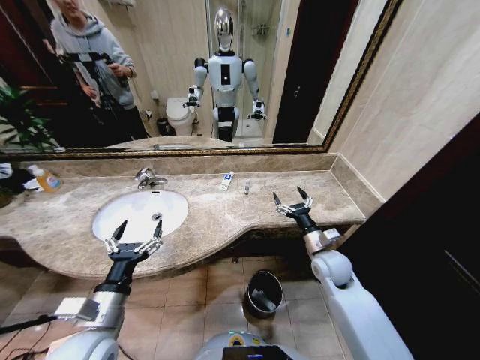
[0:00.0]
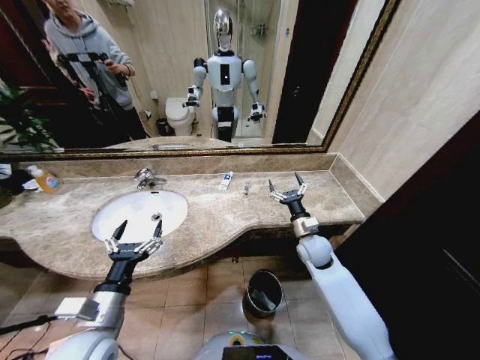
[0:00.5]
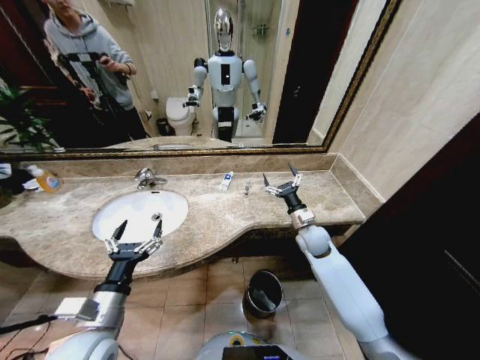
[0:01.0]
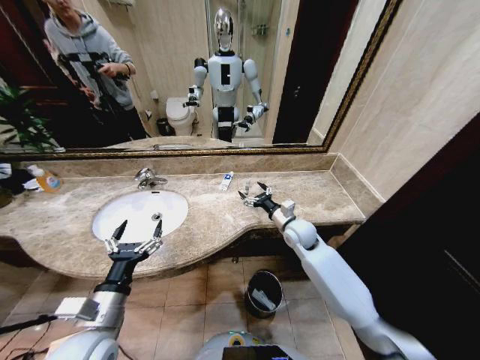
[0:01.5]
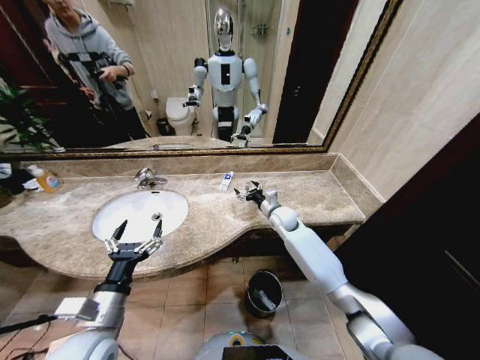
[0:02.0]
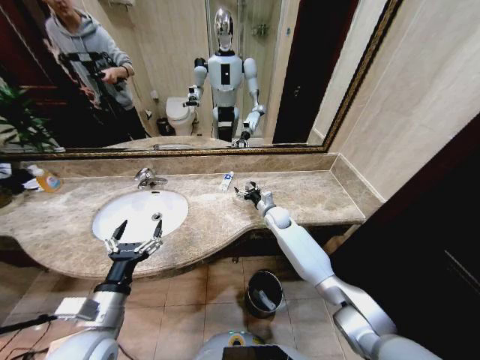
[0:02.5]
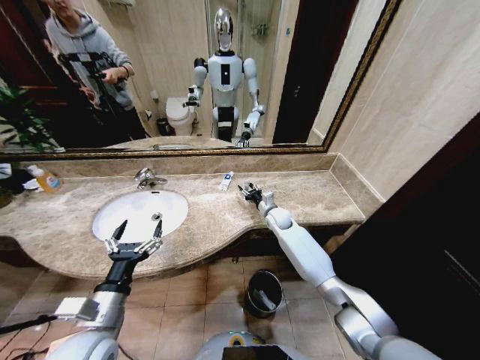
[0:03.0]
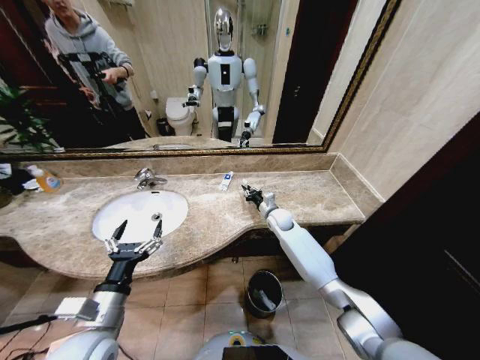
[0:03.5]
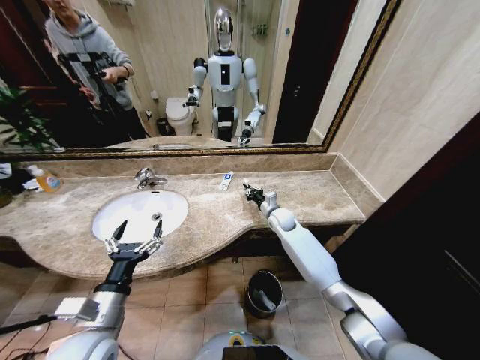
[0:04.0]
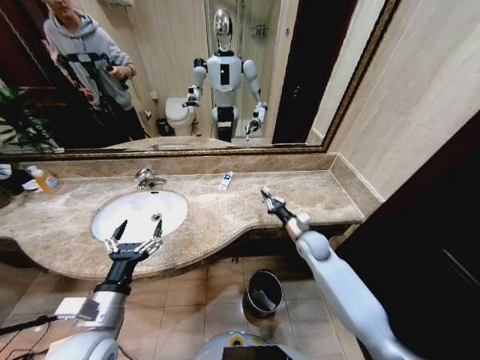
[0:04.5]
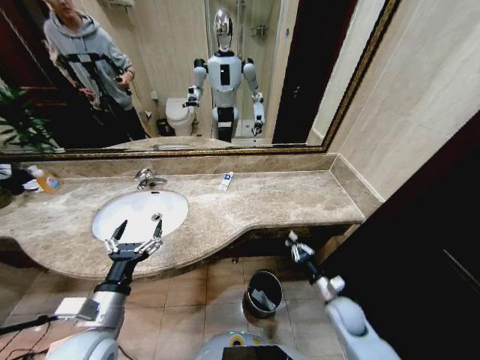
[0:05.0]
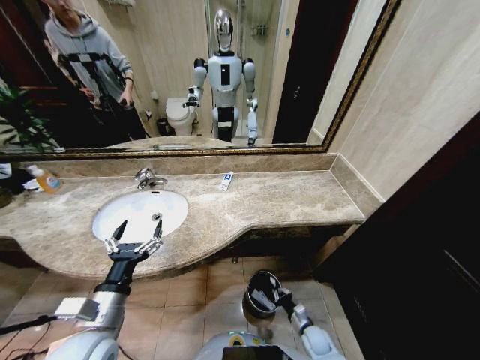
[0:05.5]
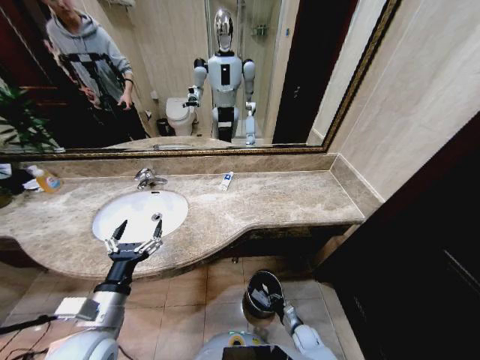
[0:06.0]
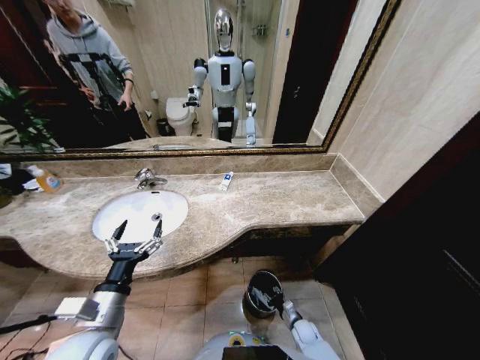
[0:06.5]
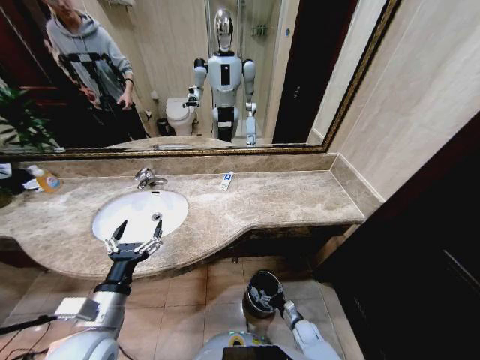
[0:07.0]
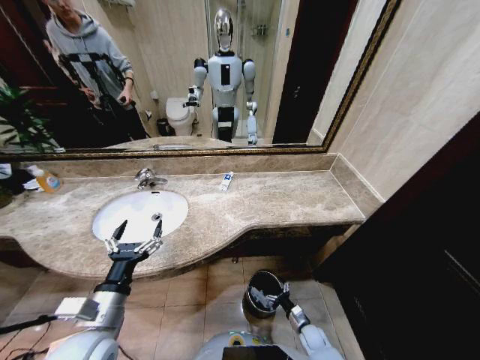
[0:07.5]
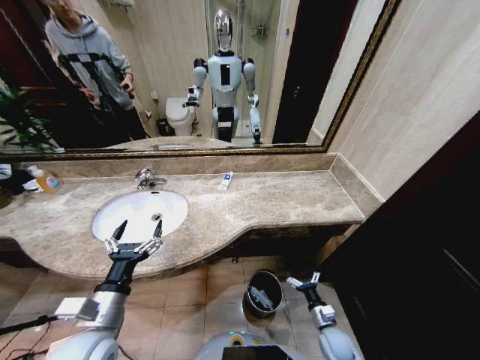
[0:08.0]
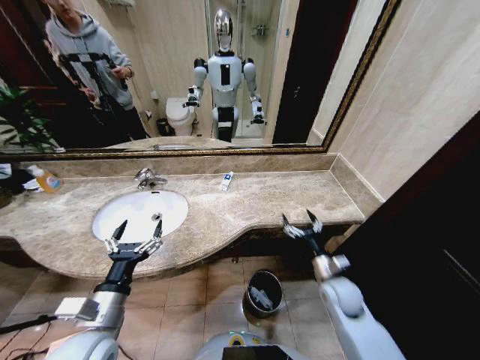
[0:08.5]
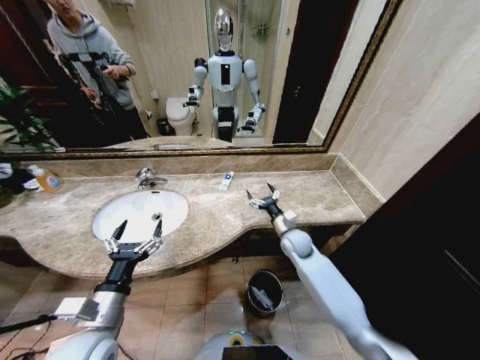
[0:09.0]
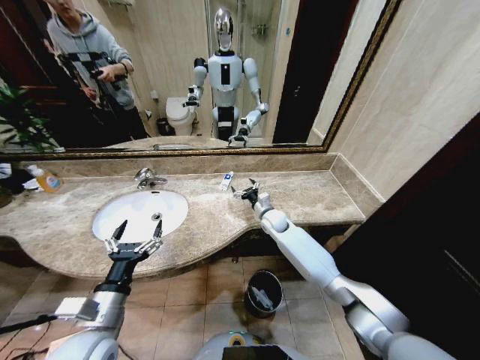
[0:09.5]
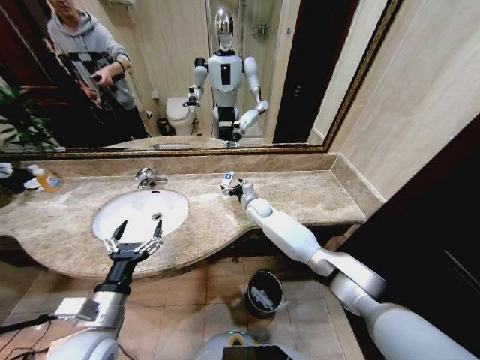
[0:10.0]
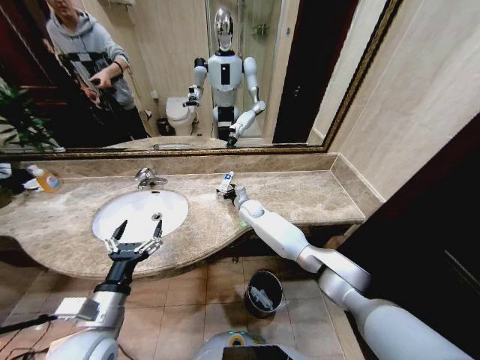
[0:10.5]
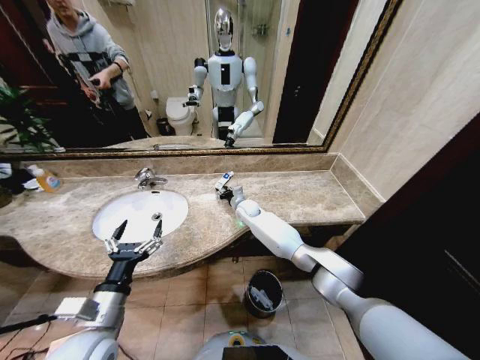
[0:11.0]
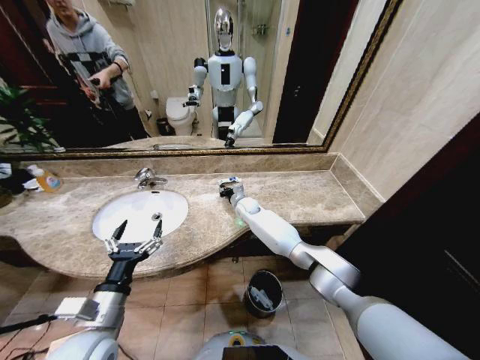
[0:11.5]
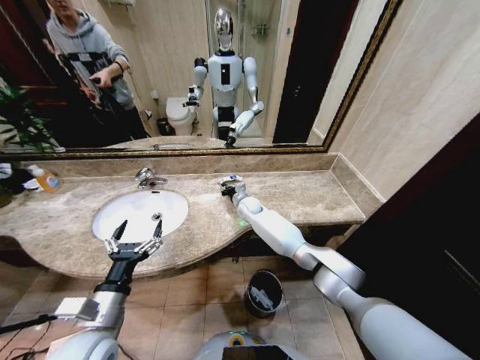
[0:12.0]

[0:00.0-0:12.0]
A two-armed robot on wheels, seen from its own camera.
Task of the whole recording: Pick up the trash from the sink and place it in the trash bin.
0:00.0 to 0:02.0: The right gripper shifts roughly 20 cm forward and to the left.
0:02.0 to 0:04.0: The right gripper closes.
0:04.0 to 0:06.0: The right gripper heads downward and backward, covering about 50 cm.
0:06.0 to 0:08.0: The right gripper goes approximately 10 cm upward and to the right, and opens up.
0:08.0 to 0:10.0: The right gripper is displaced forward, upward and to the left by some 50 cm.
0:10.0 to 0:12.0: The right gripper closes.

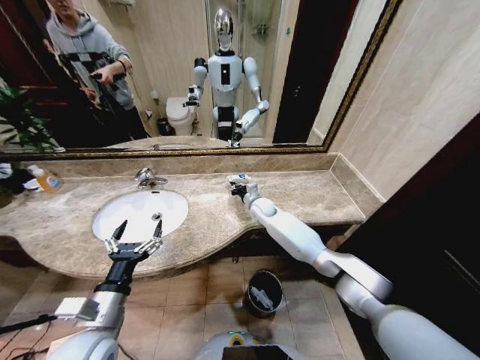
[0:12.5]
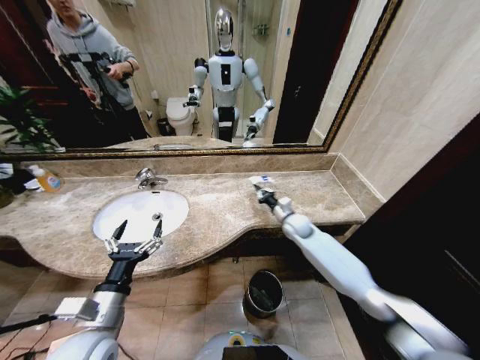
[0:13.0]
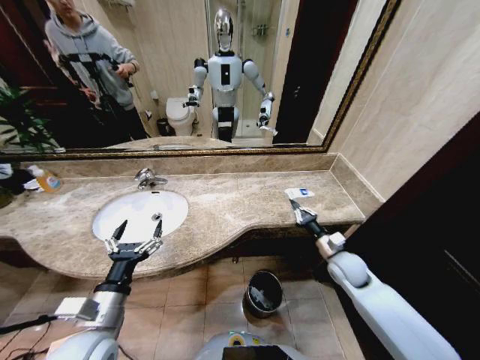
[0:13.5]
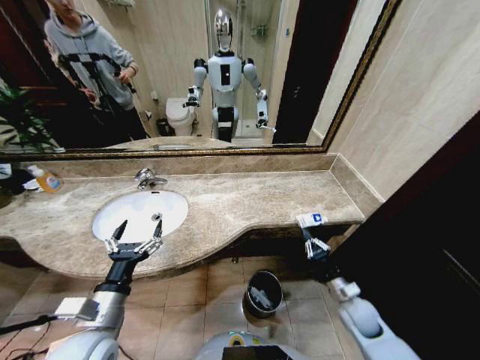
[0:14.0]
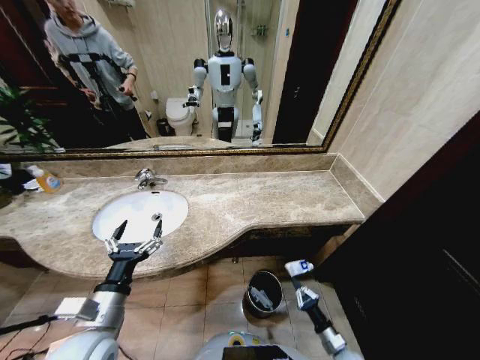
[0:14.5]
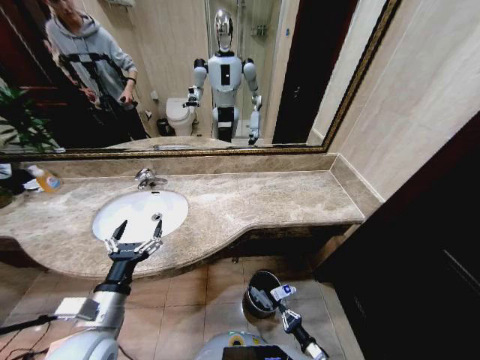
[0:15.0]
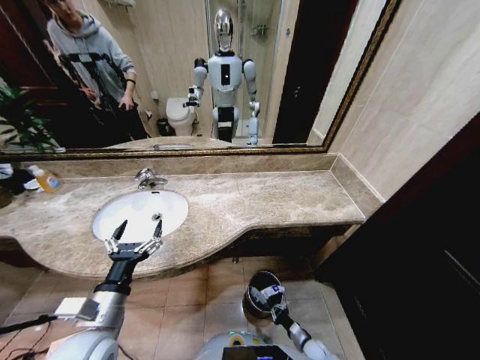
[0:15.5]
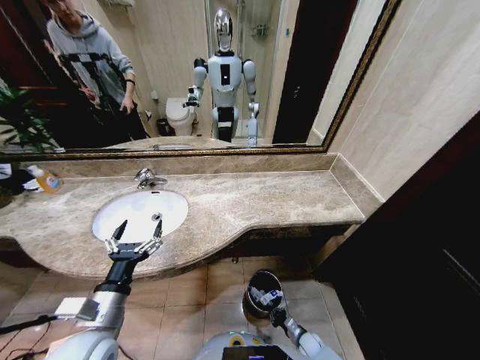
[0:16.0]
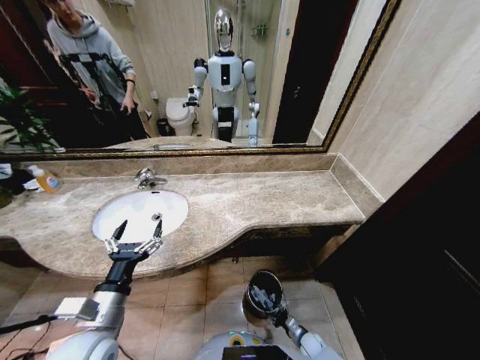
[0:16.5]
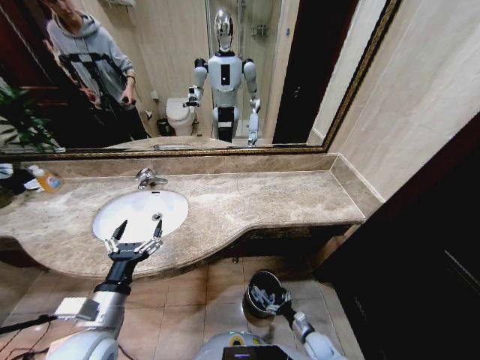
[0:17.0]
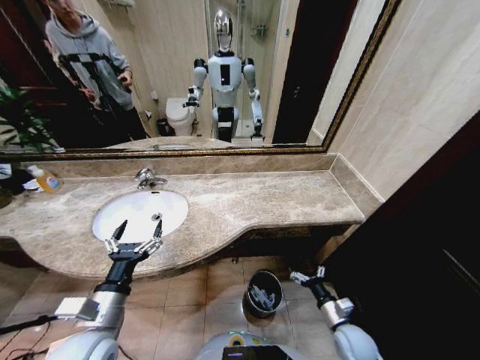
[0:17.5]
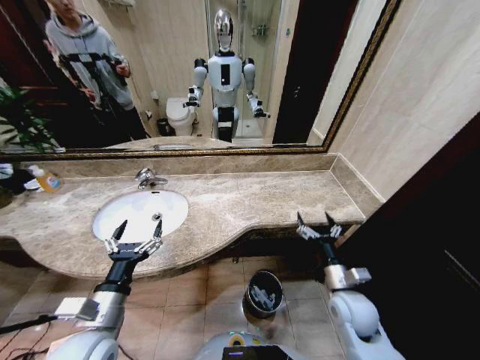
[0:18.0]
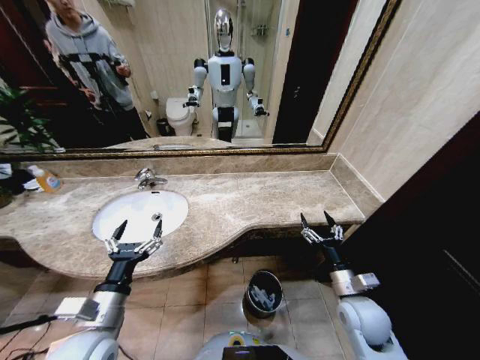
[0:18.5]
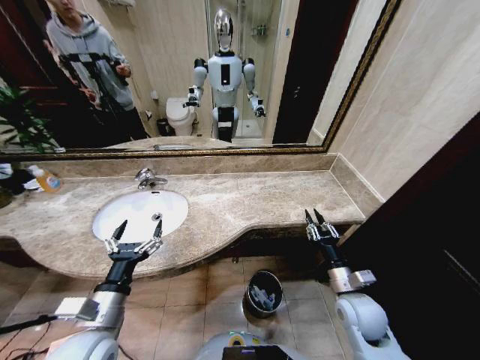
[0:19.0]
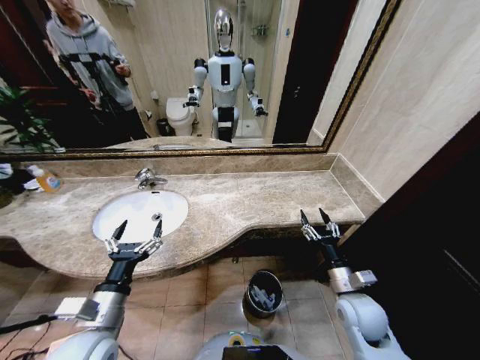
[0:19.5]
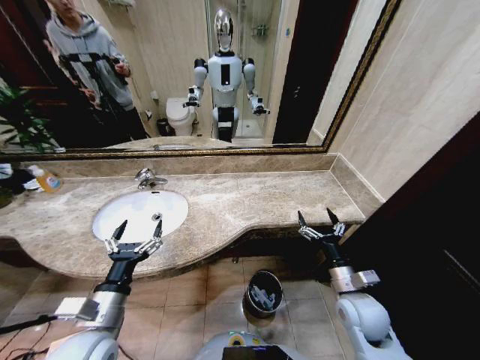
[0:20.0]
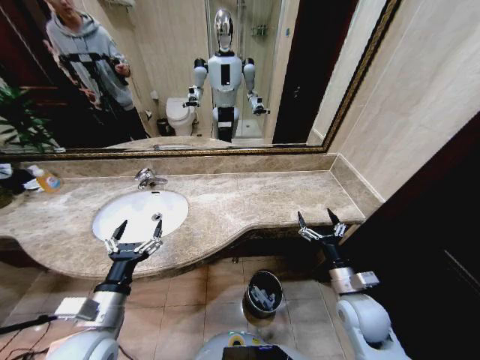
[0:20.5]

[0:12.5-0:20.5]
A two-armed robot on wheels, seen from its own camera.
Task of the whole recording: Pick up the trash from the sink and place it in the trash bin.
0:12.5 to 0:14.5: The right gripper travels backward, downward and to the right by roughly 60 cm.
0:14.5 to 0:16.5: The right gripper heads downward and forward, covering some 15 cm, and opens its fingers.
0:16.5 to 0:18.5: The right gripper goes approximately 35 cm upward.
0:18.5 to 0:20.5: The right gripper closes, then reopens.

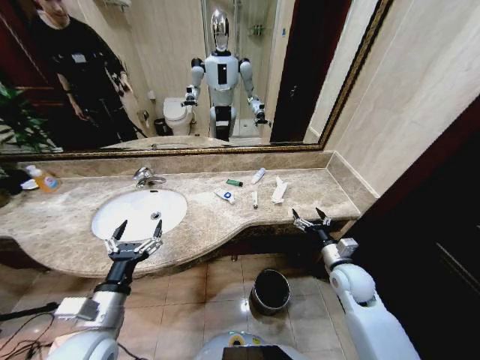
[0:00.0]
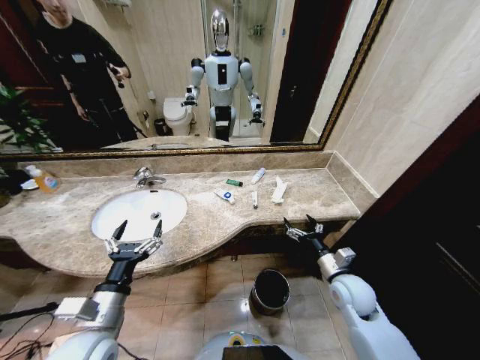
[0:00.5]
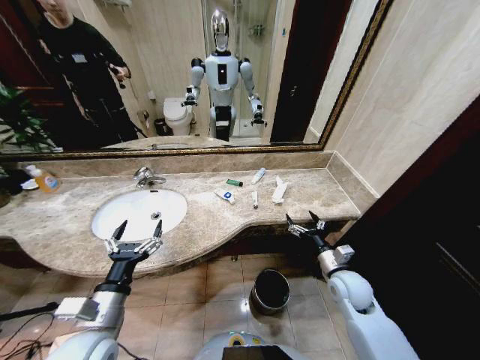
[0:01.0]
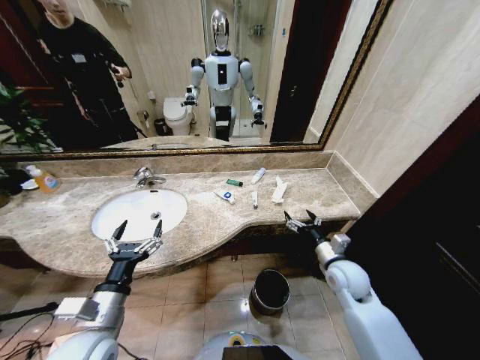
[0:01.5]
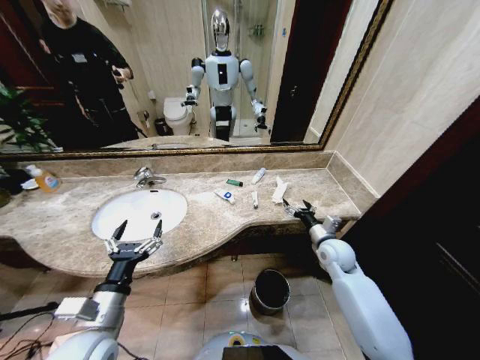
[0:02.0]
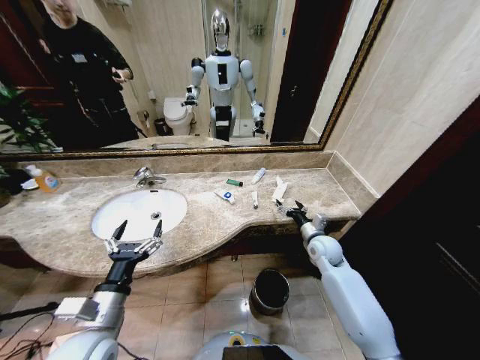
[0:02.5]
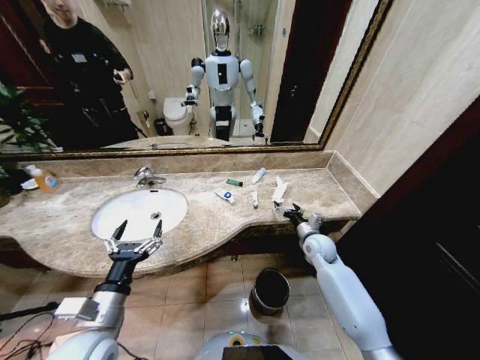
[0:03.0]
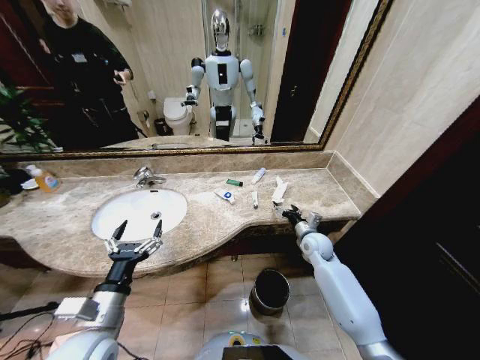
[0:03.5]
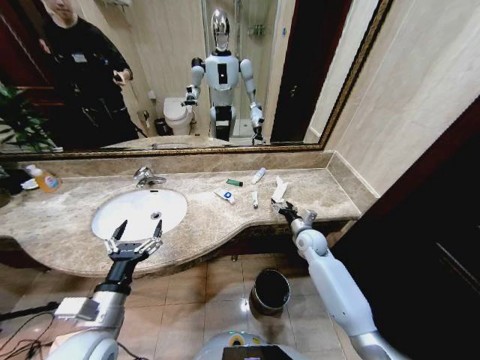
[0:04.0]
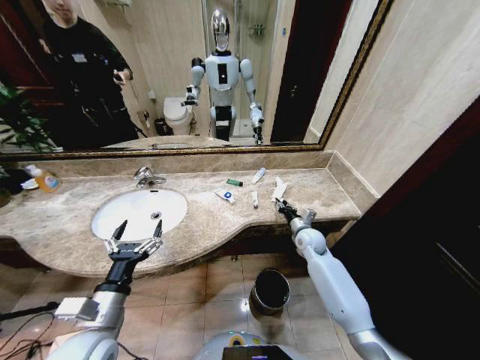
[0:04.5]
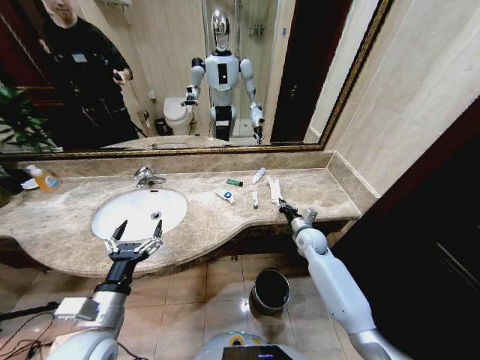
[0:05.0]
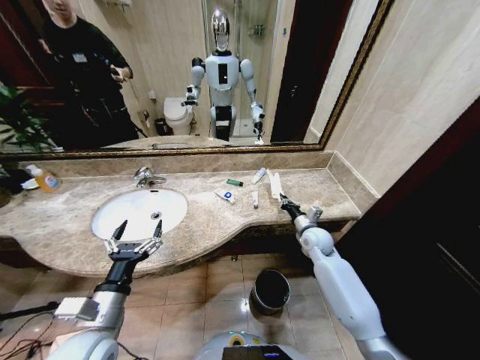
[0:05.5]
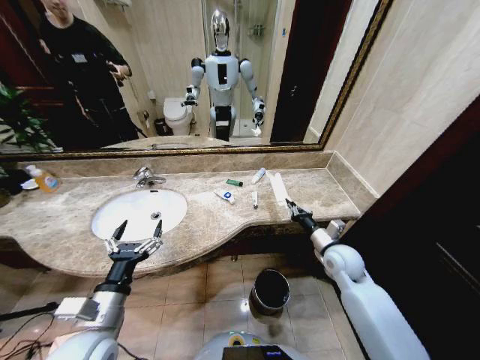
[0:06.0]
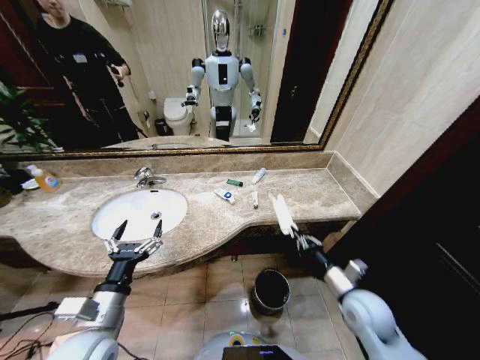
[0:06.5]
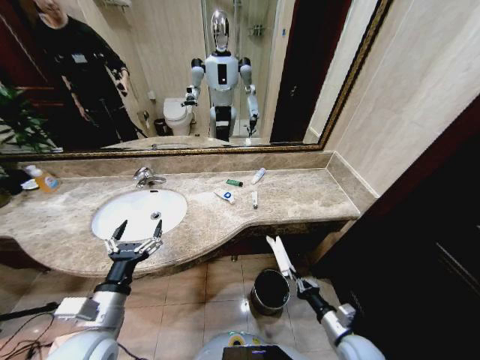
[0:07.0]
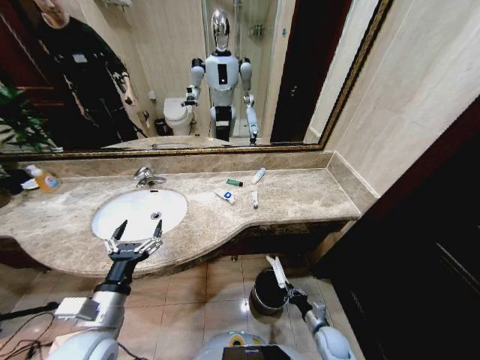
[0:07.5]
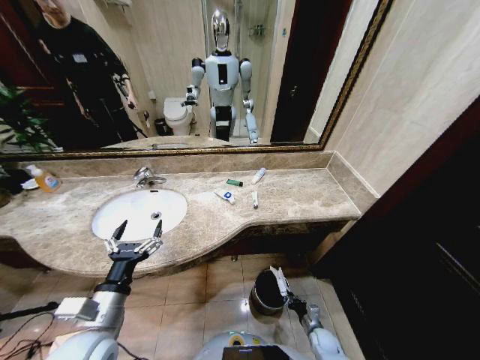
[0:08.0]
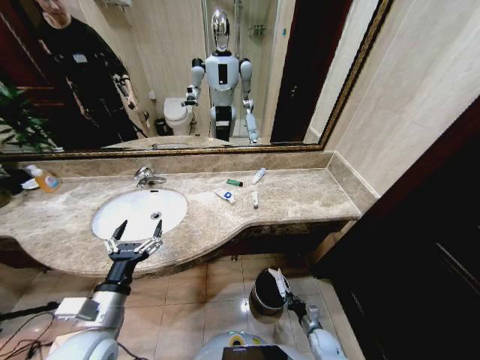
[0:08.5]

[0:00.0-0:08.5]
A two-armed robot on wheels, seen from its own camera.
Task of the whole recording: Pick up the trash from the sink and place it in the trash bin.
0:02.0 to 0:04.0: The right gripper is displaced forward by about 5 cm.
0:04.0 to 0:06.5: The right gripper travels backward by approximately 20 cm, and closes.
0:06.5 to 0:08.5: The right gripper is displaced downward by about 35 cm.
